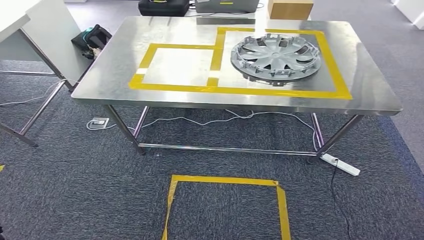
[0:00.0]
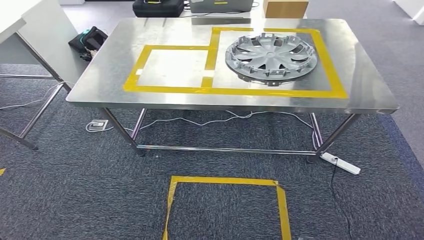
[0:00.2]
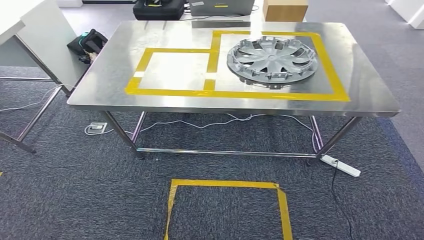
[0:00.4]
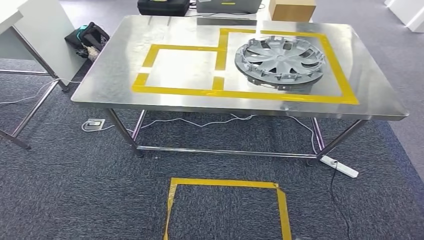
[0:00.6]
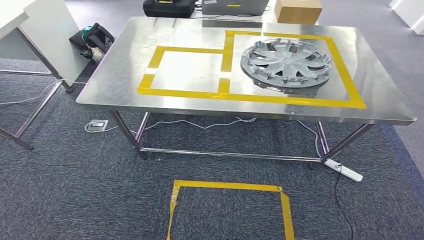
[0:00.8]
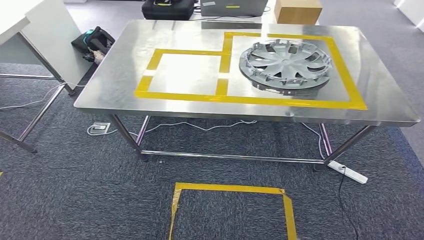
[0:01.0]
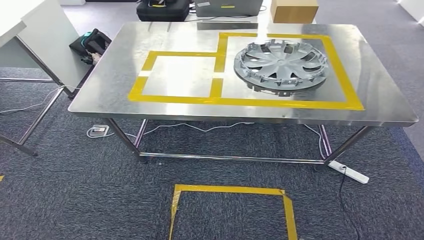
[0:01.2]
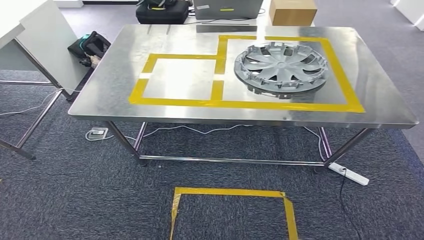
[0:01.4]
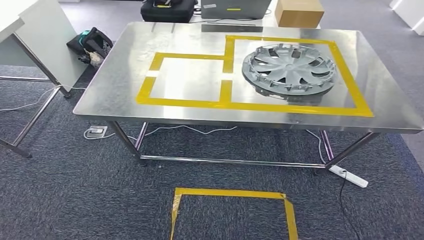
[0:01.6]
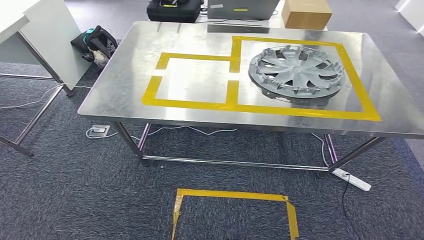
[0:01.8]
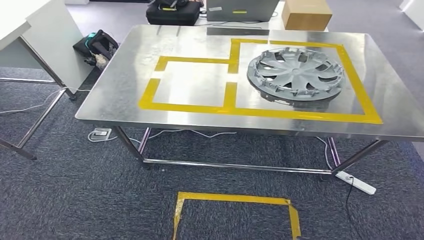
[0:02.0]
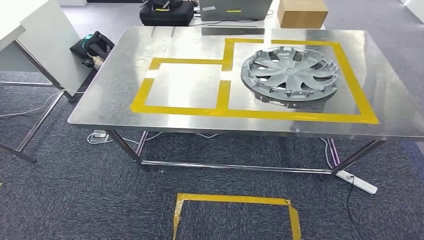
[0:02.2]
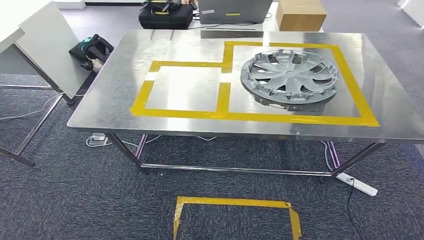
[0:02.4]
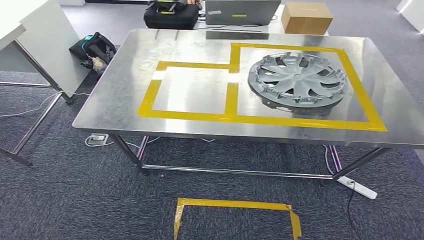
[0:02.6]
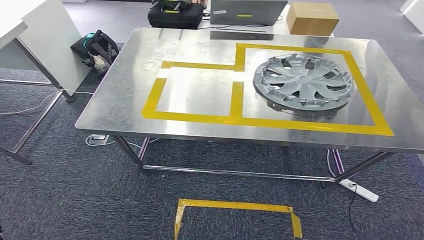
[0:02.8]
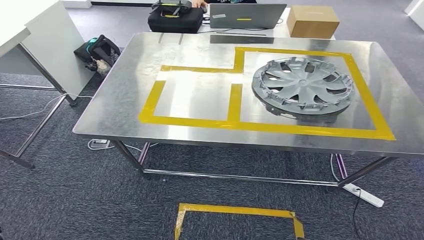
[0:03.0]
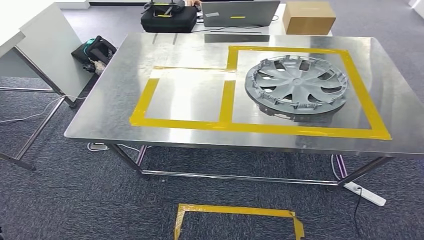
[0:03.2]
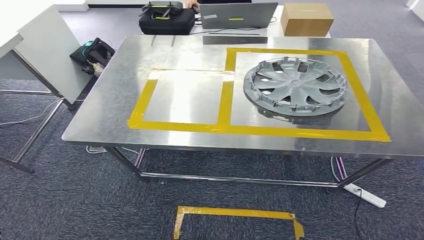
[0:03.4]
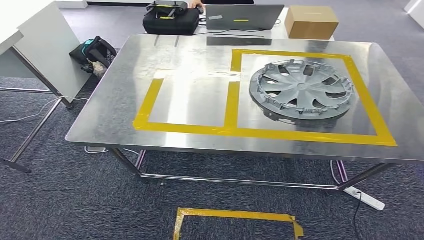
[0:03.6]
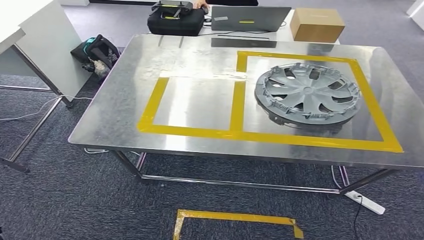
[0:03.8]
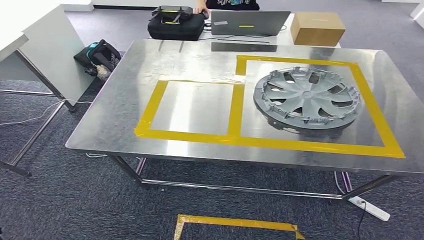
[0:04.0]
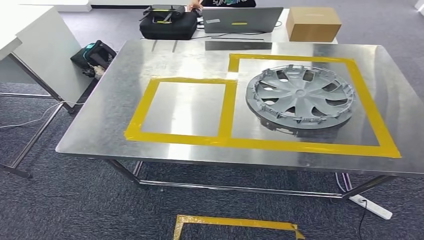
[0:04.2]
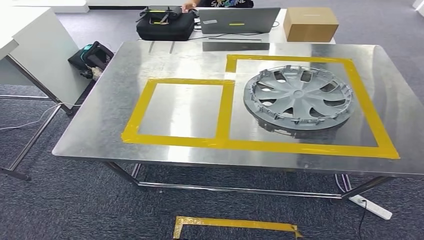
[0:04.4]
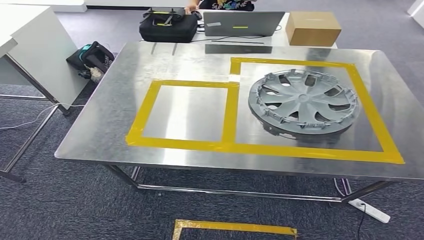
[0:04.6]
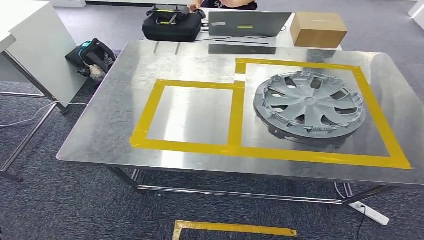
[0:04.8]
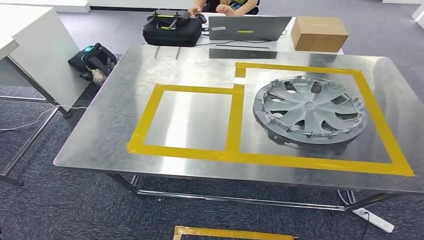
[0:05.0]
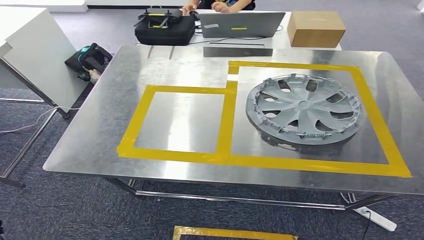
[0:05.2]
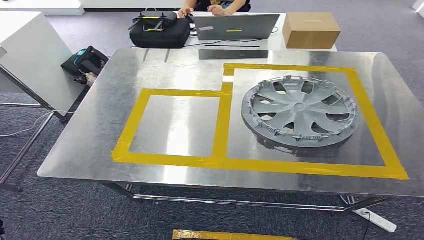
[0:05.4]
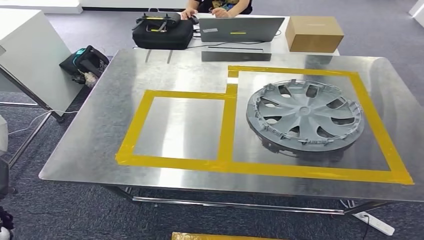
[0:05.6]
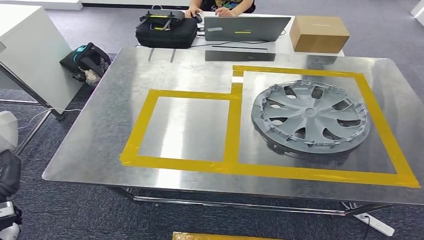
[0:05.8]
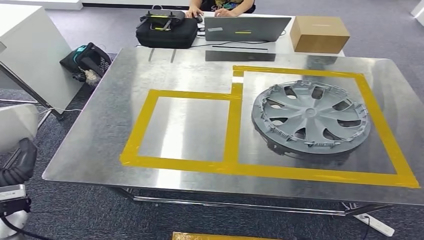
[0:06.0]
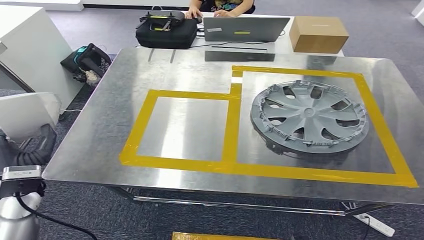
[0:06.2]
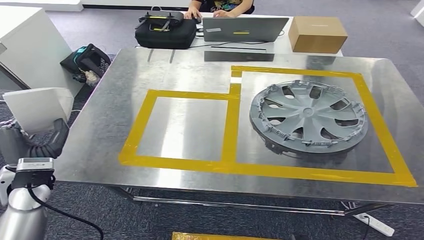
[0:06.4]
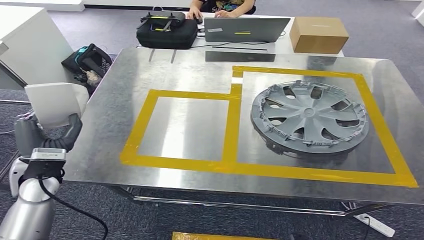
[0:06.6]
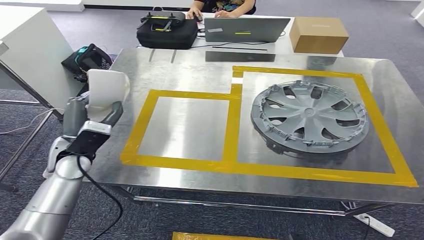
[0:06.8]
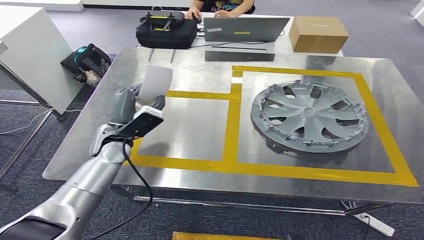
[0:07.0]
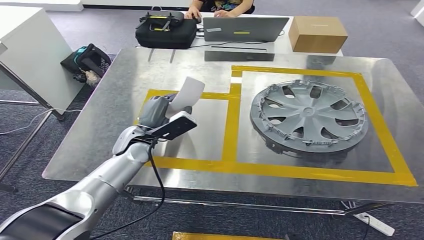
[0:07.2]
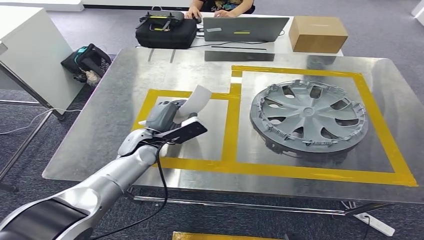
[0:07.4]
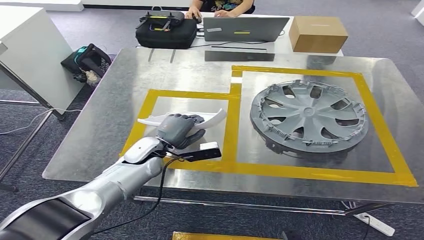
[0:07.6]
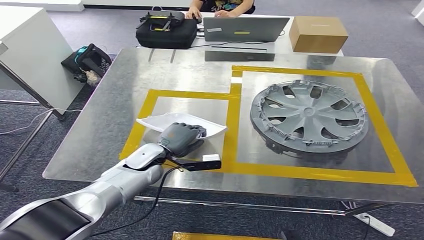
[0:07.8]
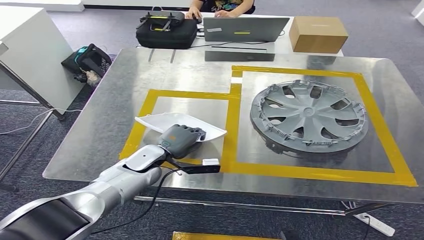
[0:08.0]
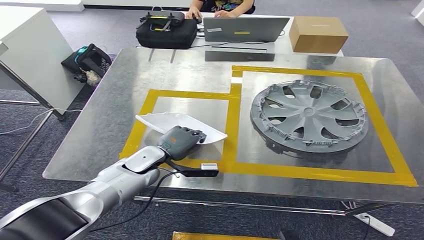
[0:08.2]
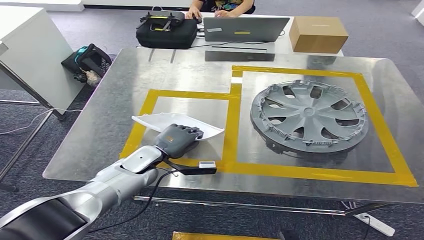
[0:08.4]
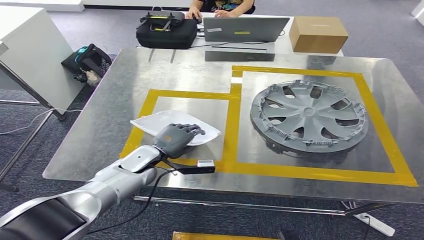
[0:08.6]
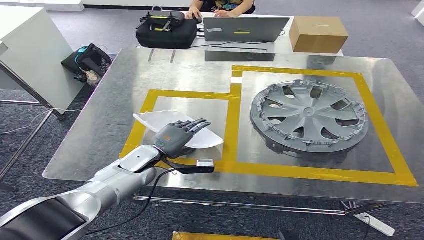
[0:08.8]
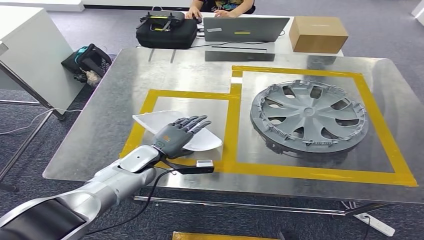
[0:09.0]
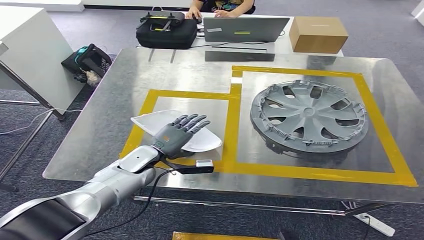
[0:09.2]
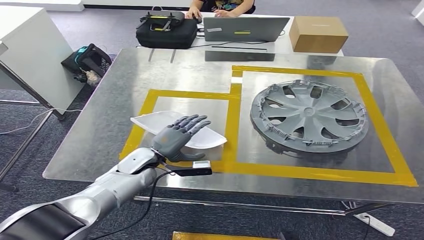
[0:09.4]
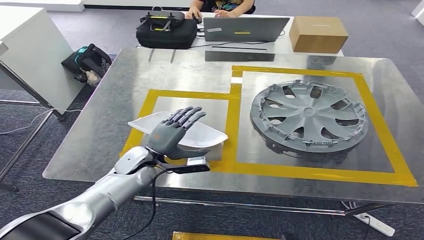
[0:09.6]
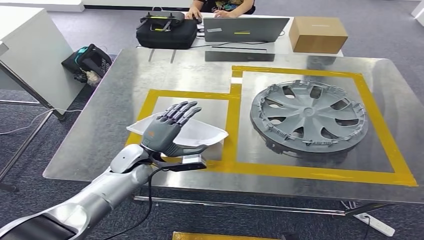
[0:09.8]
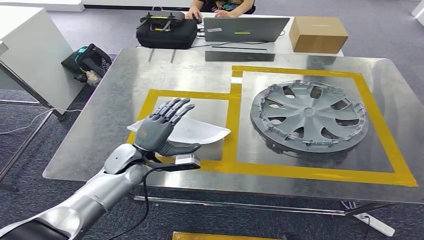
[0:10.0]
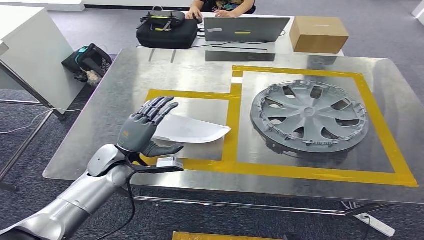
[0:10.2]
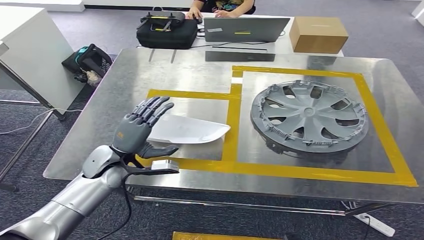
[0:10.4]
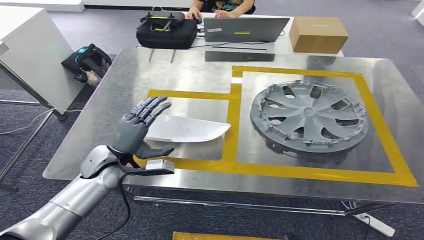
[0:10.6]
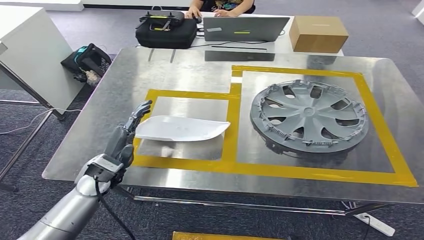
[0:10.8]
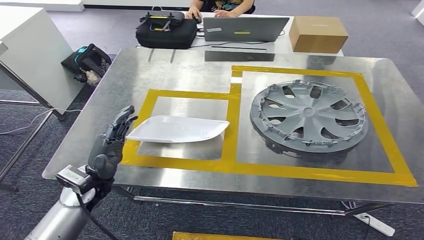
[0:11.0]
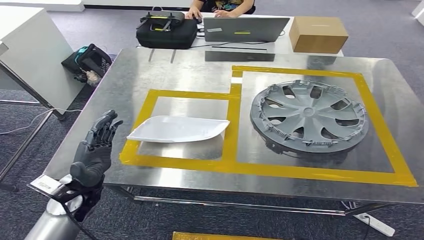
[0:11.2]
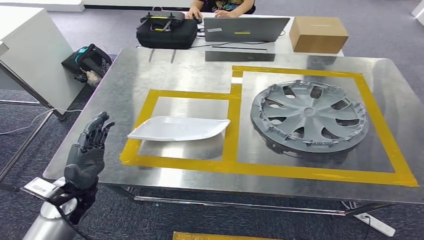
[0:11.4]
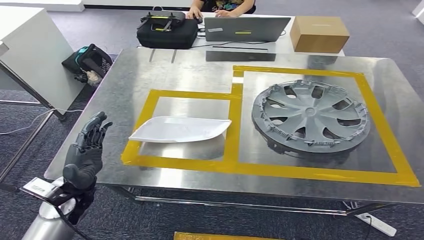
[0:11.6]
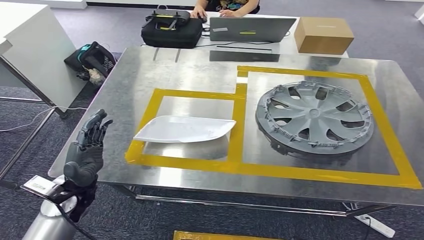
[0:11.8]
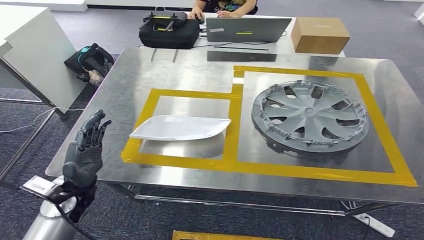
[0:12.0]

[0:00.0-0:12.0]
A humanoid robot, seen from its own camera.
Step, 0:00.0 to 0:03.6: Move the small component to the workbench.
0:06.0 to 0:07.6: The left hand shifts some 25 cm to the right and forward.
0:09.0 to 0:10.4: The left hand changes place by roughly 5 cm.
0:10.4 to 0:12.0: The left hand is displaced backward by roughly 10 cm.

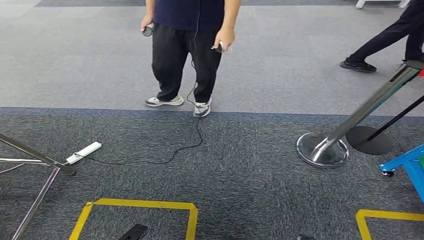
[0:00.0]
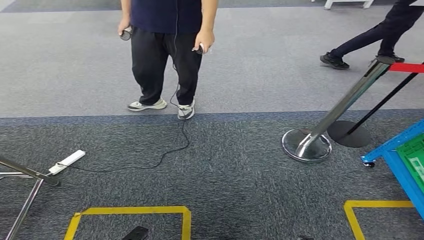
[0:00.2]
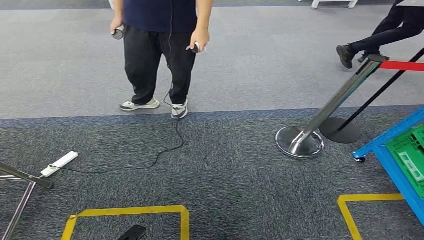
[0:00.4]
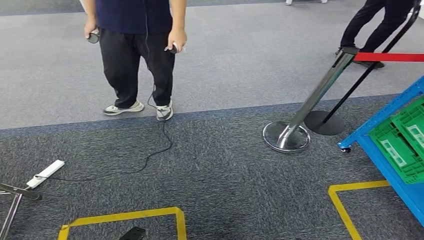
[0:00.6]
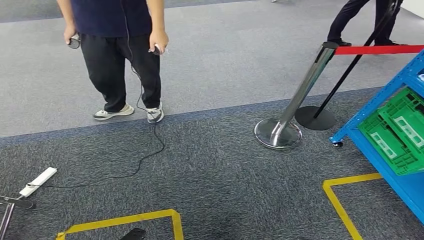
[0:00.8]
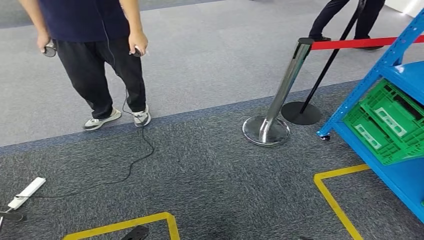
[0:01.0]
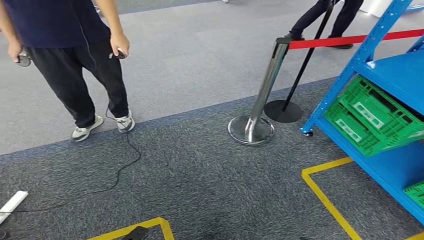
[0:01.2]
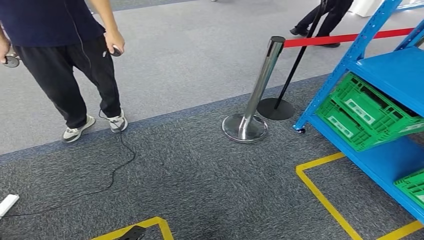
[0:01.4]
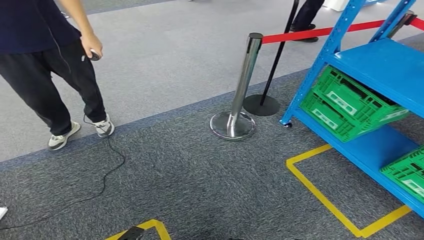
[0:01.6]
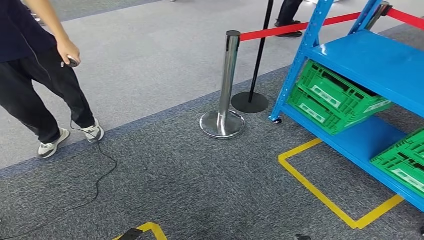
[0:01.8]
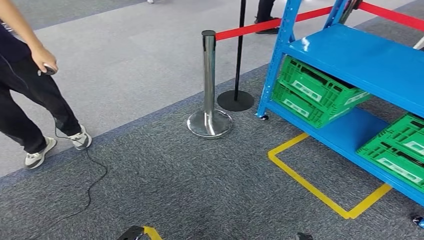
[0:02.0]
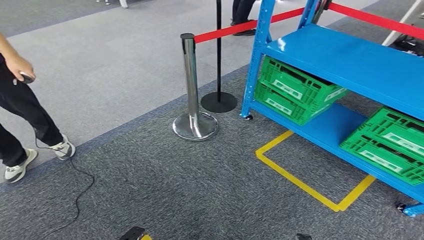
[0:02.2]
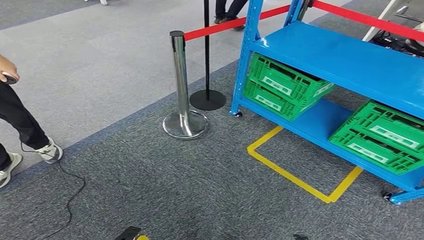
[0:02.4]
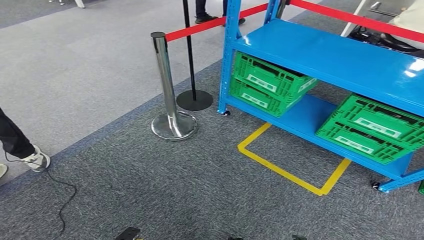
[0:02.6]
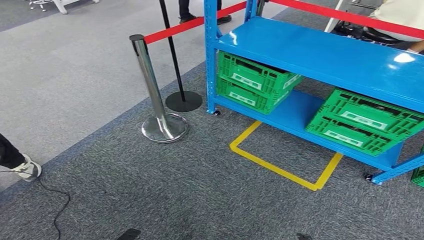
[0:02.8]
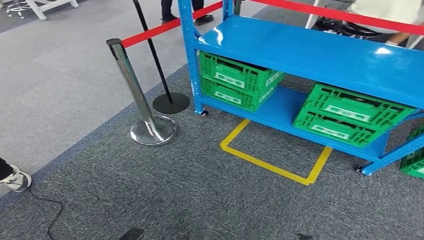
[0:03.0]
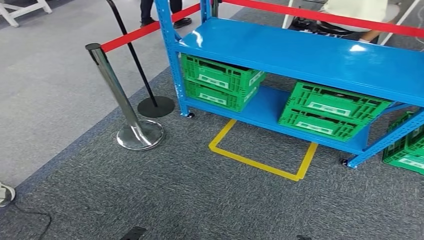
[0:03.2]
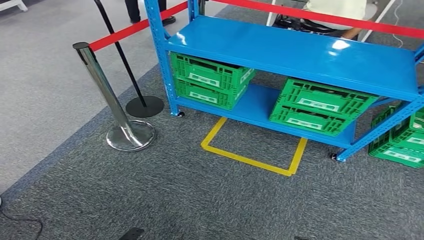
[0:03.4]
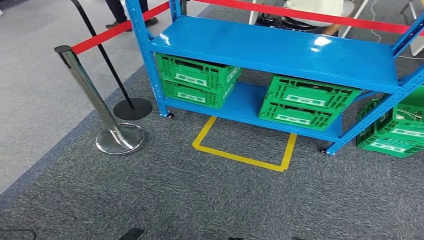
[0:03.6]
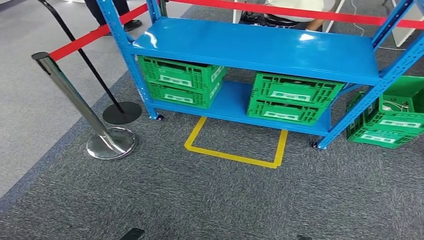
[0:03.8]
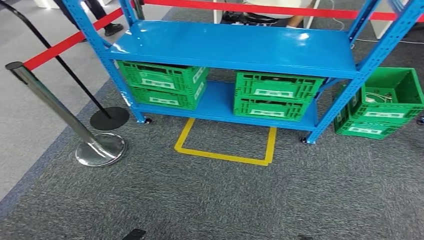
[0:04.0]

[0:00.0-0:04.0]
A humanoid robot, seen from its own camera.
Step, 0:00.0 to 0:04.0: Return to the initial position at the workbench.

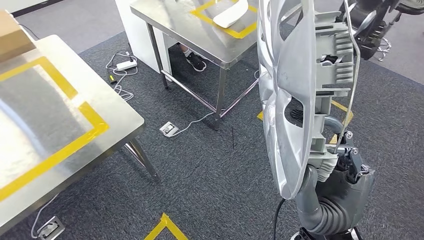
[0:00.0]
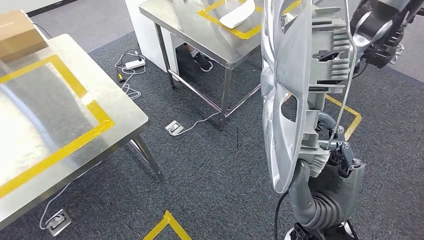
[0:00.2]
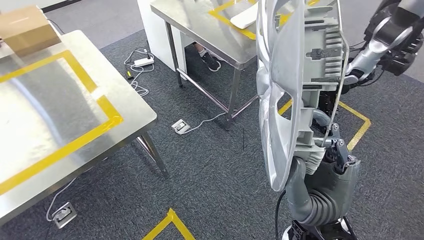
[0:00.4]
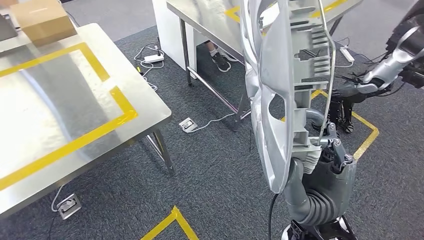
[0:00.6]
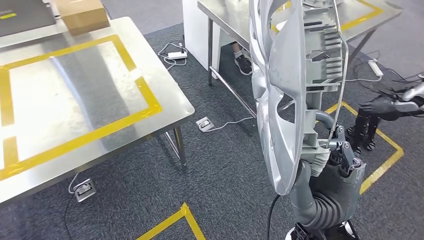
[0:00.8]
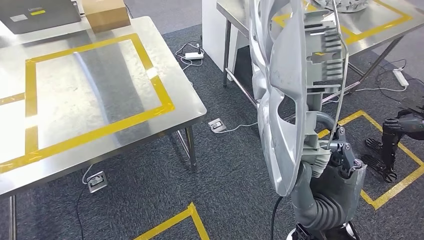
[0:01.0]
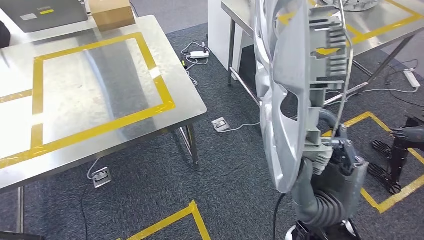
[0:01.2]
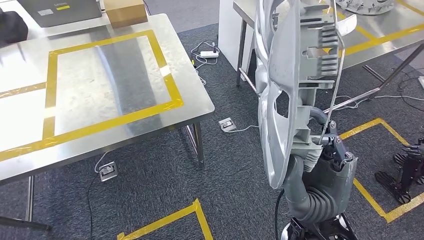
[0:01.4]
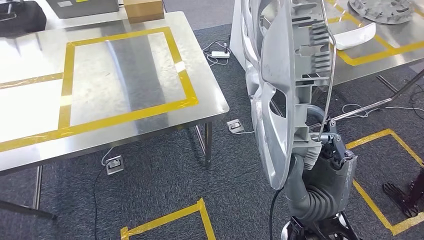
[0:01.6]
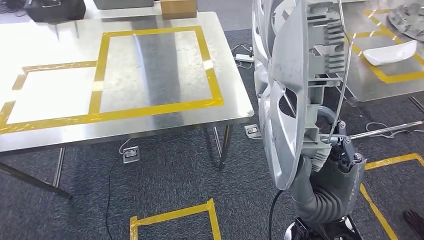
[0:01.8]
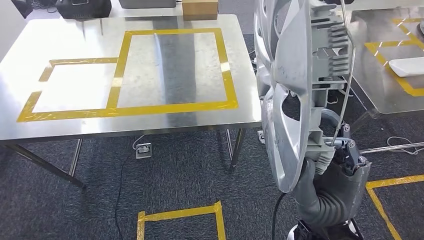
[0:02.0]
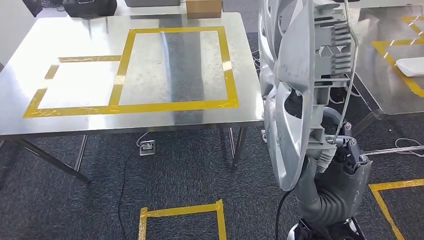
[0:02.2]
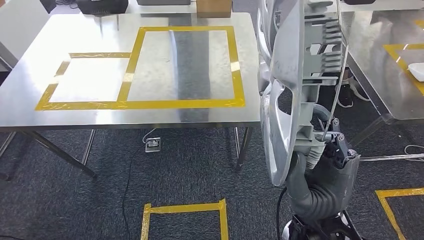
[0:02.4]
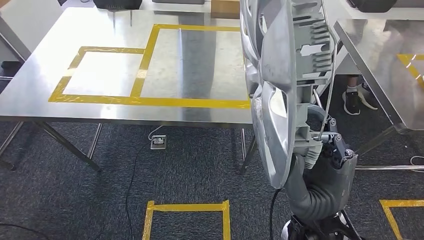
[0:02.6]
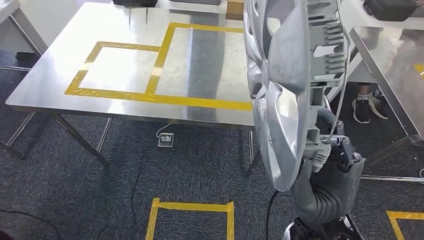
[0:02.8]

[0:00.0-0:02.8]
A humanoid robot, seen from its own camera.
Step, 0:00.0 to 0:02.4: Move the small component to the workbench.
